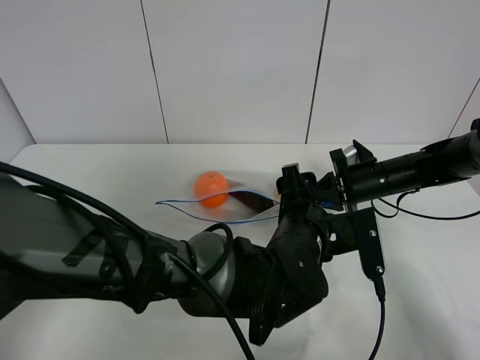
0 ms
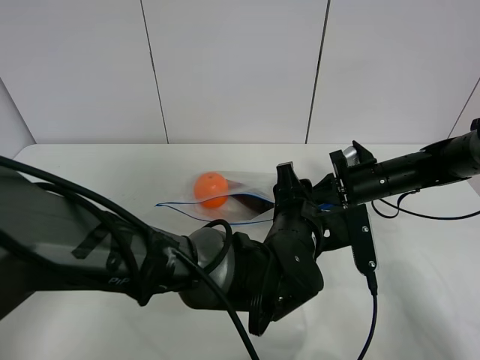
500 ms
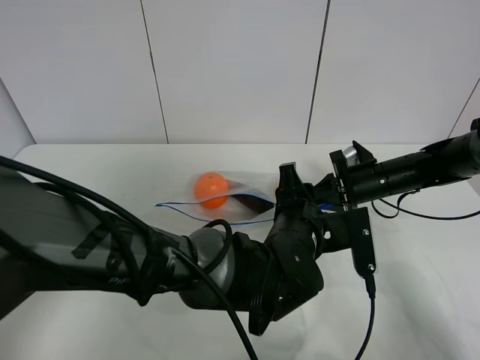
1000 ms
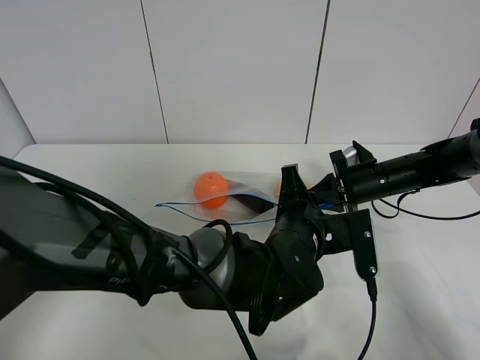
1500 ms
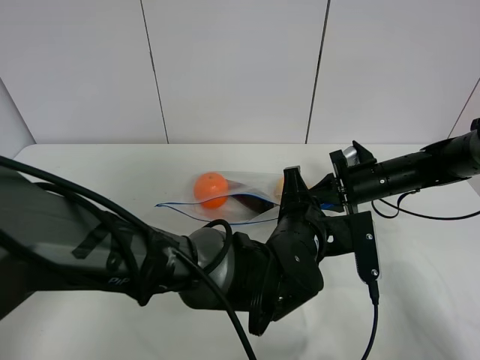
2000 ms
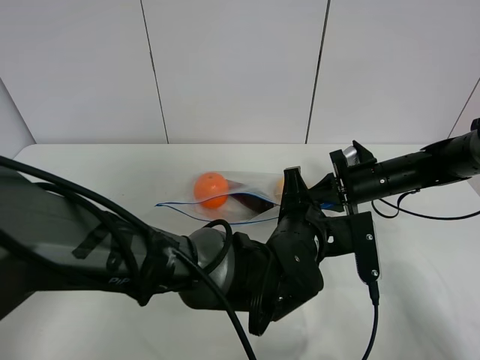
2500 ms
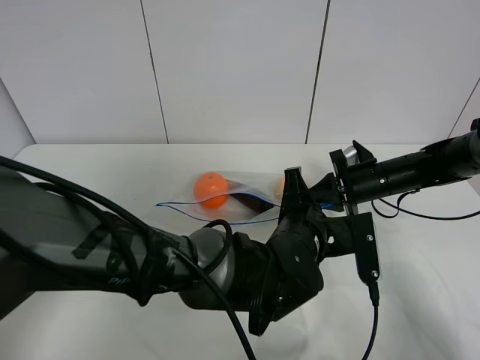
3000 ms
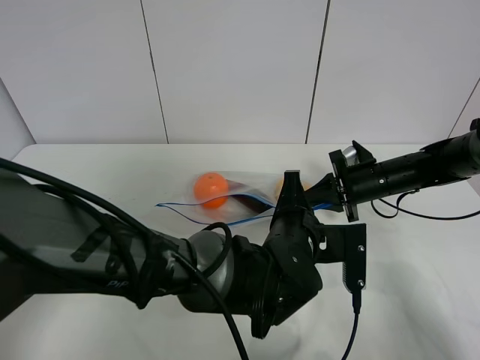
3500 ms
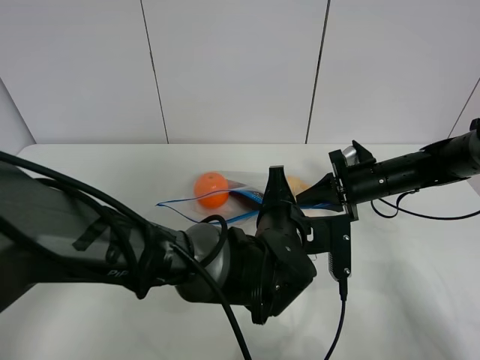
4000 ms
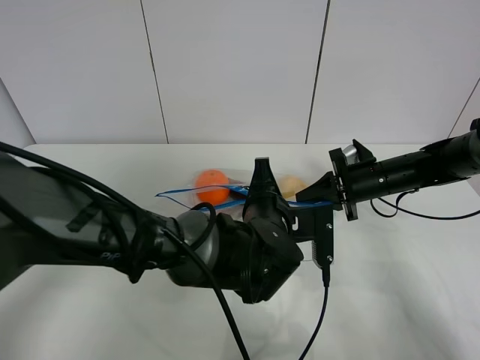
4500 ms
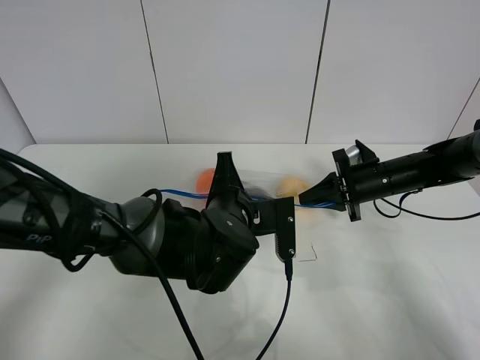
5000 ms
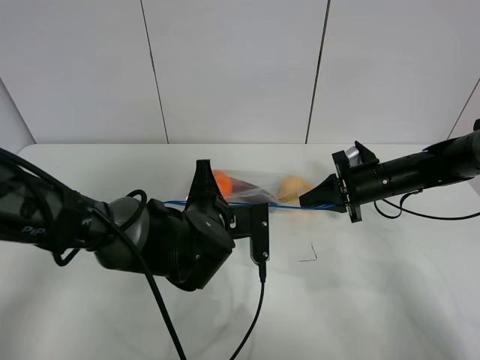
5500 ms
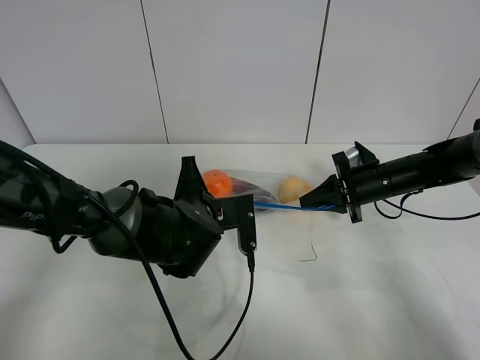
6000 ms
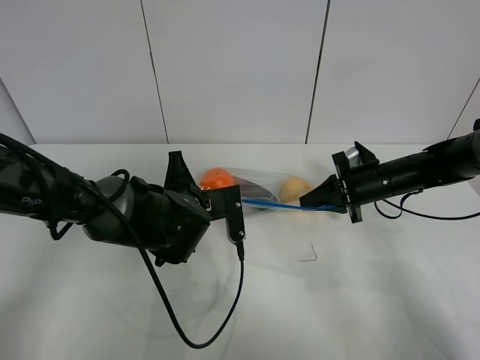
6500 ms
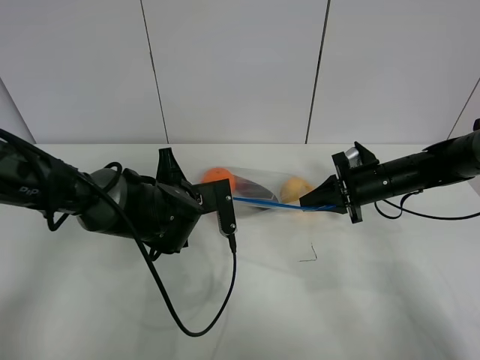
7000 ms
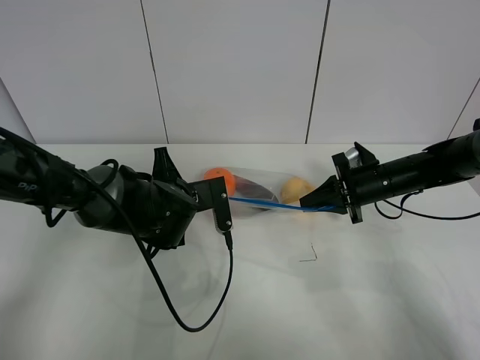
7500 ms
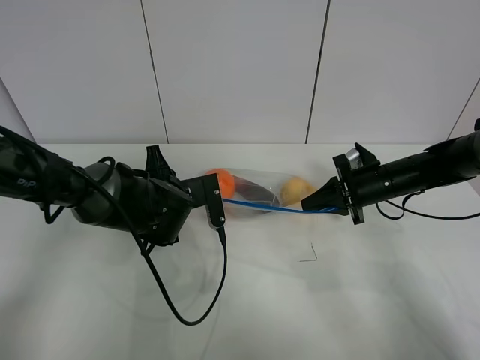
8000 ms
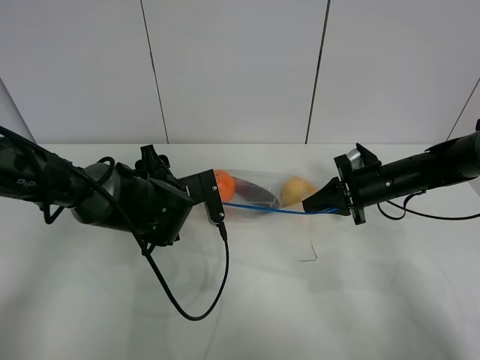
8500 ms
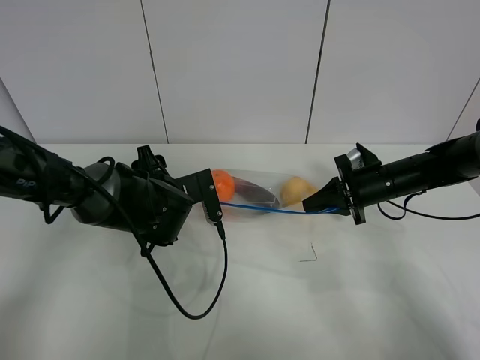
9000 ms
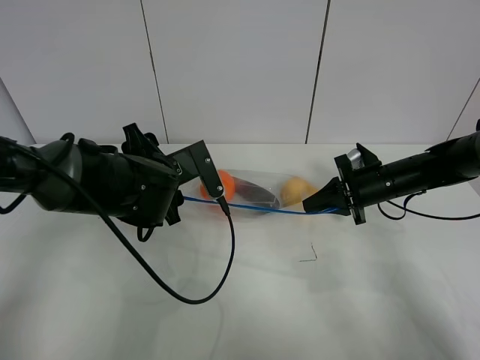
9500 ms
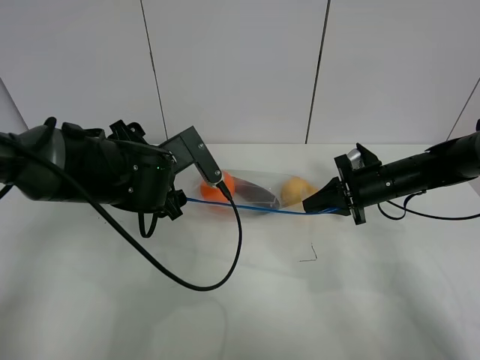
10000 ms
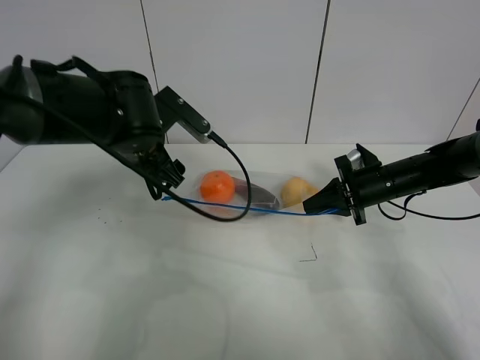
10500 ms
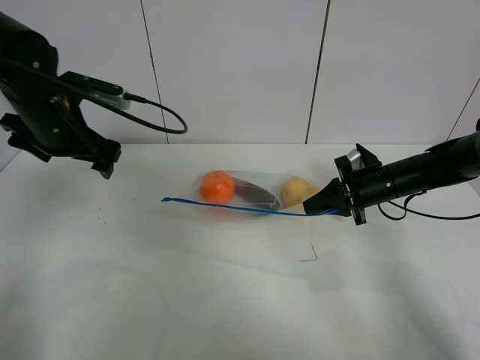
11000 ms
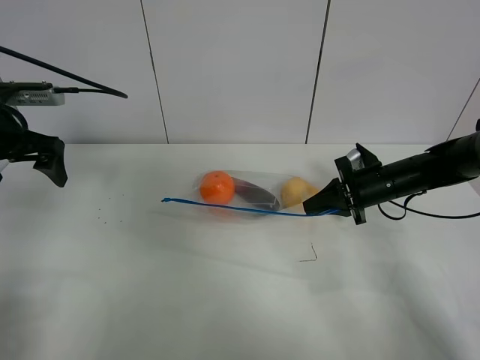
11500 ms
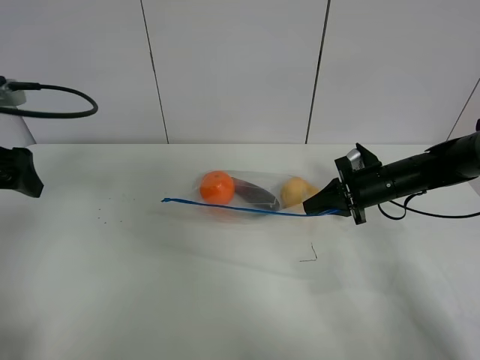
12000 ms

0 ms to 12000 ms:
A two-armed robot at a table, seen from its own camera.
Step, 0 ms to 8000 ms: Pull the fruit bag with left gripper.
0 ms to 2000 ms: The left gripper closes its fingers.
2000 ms to 4000 ms: There are only small adjustments of the grippers.
4000 ms to 6000 ms: The left gripper is displaced to the left by about 10 cm.
6000 ms to 8000 ms: The left gripper ends up approximately 5 cm from where it was, and opens up.
8000 ms to 10000 ms: The left gripper is displaced upward by approximately 5 cm, and opens up.
10000 ms to 12000 ms: The left gripper travels to the left and upward by some 25 cm.

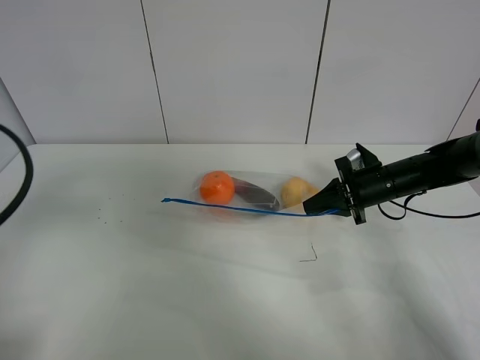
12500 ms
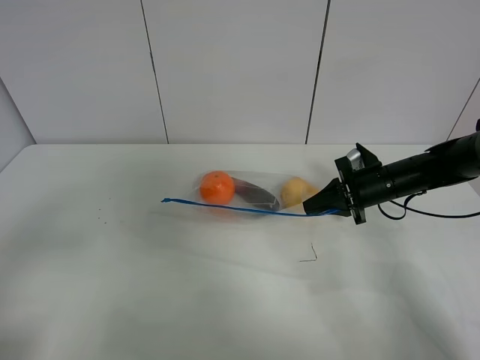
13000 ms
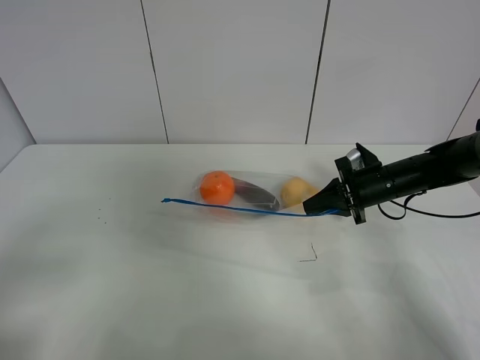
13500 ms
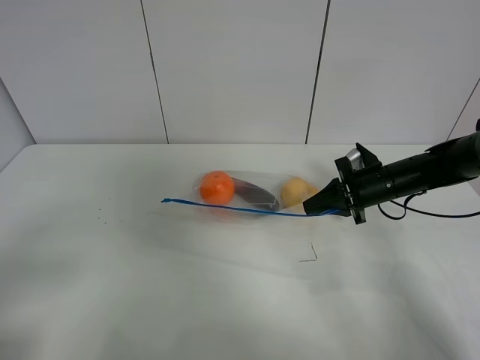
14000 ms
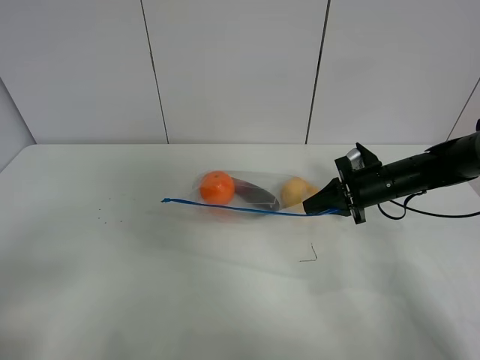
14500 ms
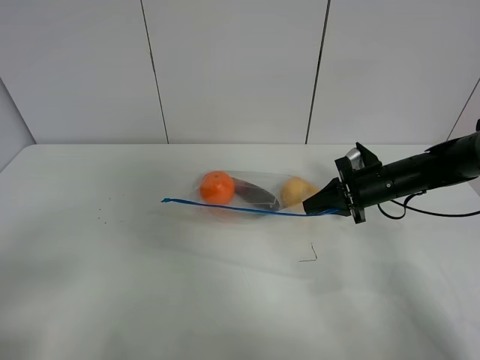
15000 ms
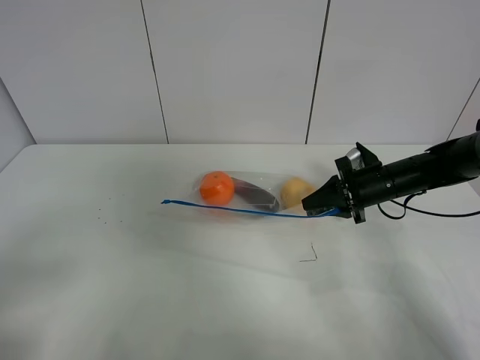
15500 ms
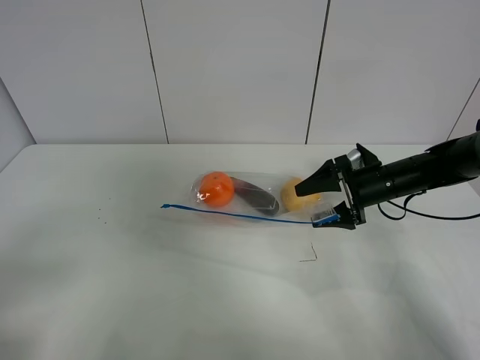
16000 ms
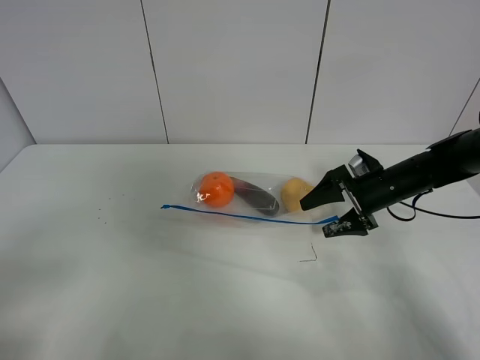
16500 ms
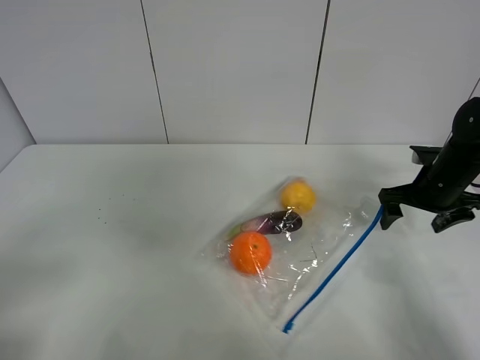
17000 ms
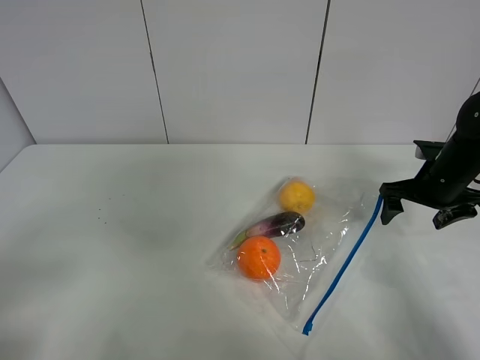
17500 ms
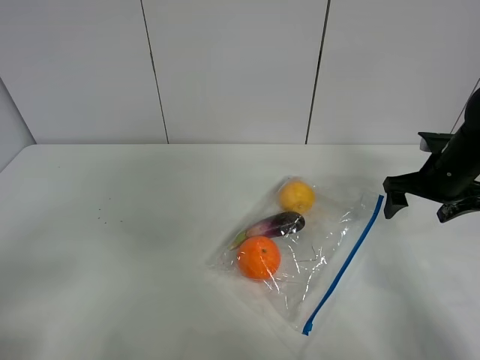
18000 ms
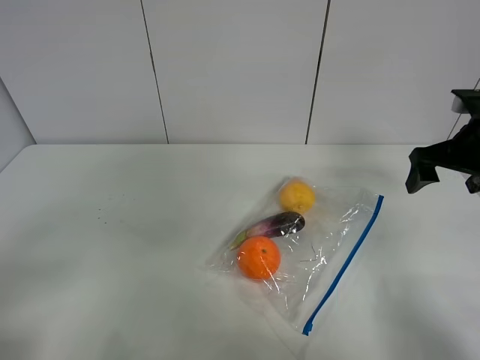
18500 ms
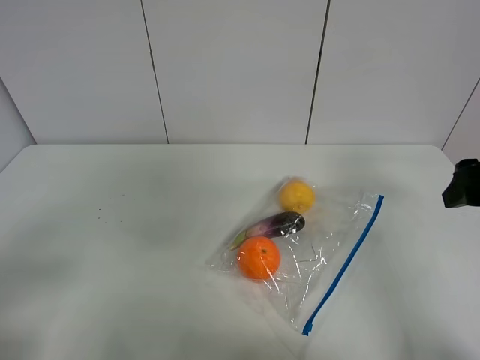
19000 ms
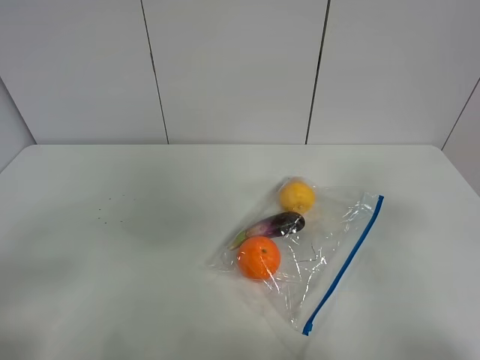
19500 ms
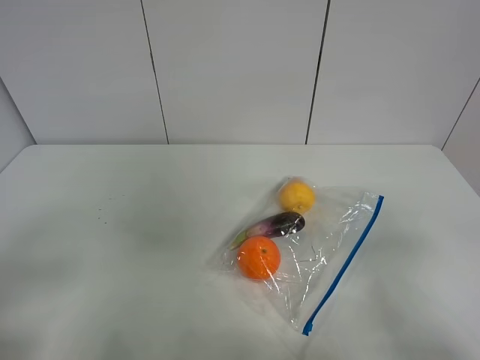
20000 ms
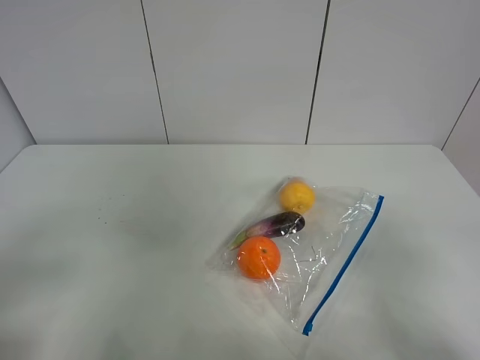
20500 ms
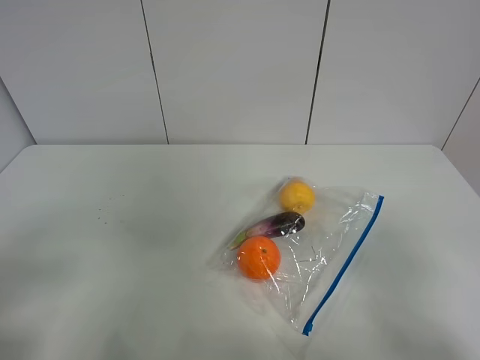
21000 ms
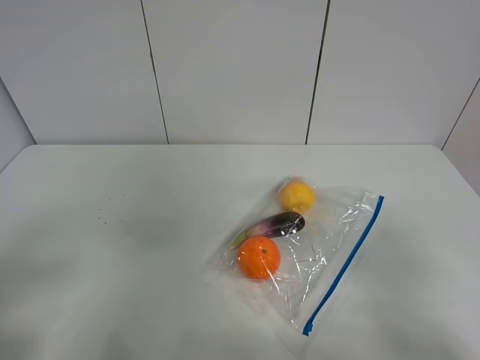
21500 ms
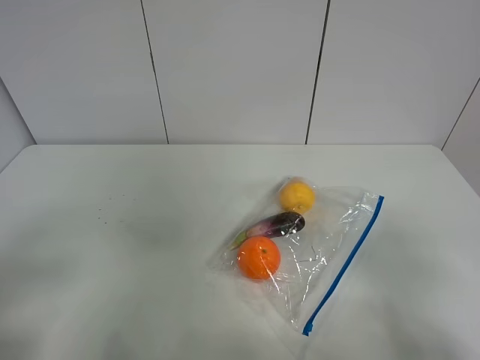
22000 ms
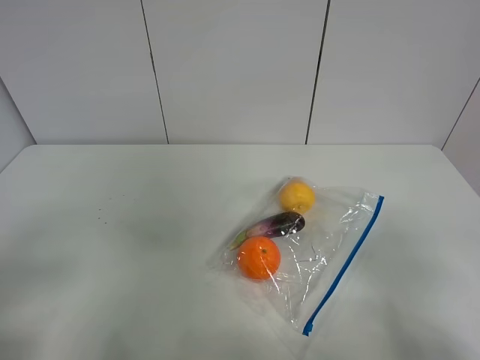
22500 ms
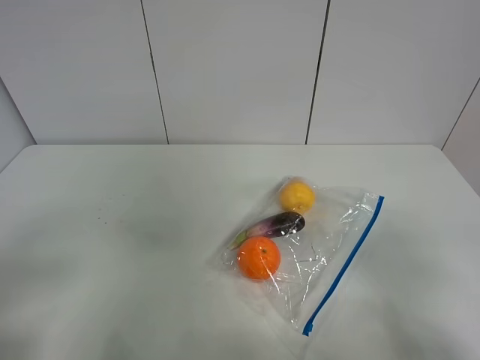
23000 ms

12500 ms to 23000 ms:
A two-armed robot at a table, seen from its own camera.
Step, 12500 ms to 17000 ms: Place the fruit bag with right gripper.
12500 ms to 14500 ms: The left gripper moves backward, roughly 15 cm.
14500 ms to 16500 ms: The right gripper opens its fingers.
16500 ms to 19000 ms: The right gripper is displaced upward and backward by some 25 cm.
19000 ms to 21000 ms: The right gripper shifts about 20 cm backward.

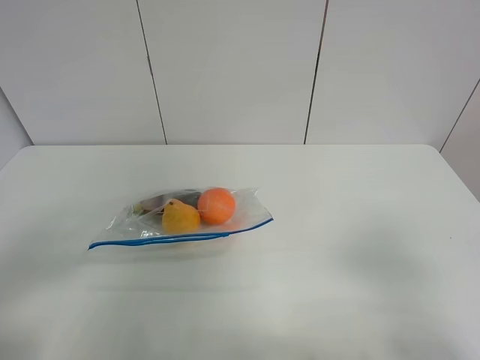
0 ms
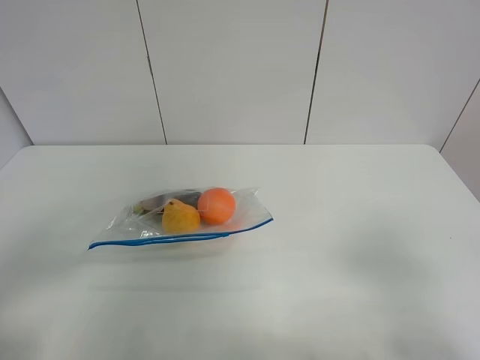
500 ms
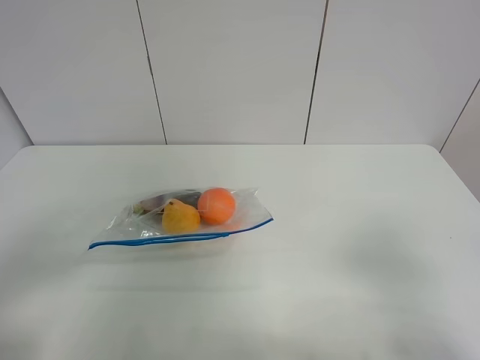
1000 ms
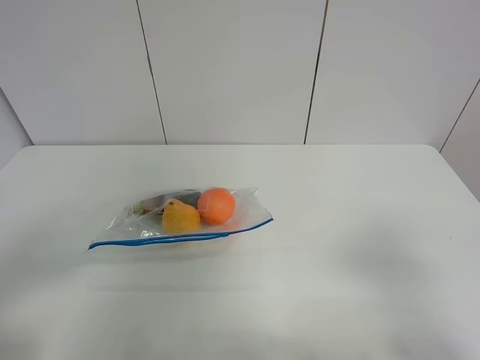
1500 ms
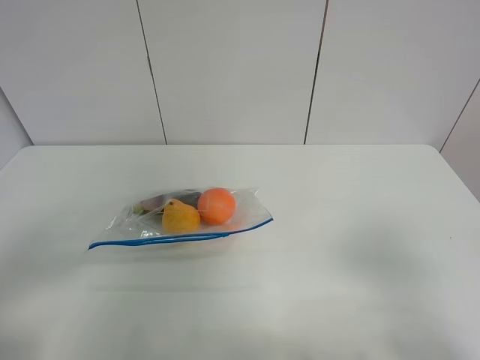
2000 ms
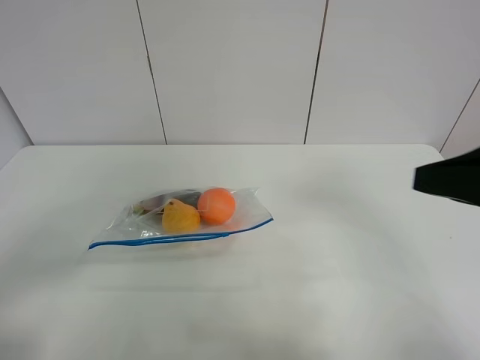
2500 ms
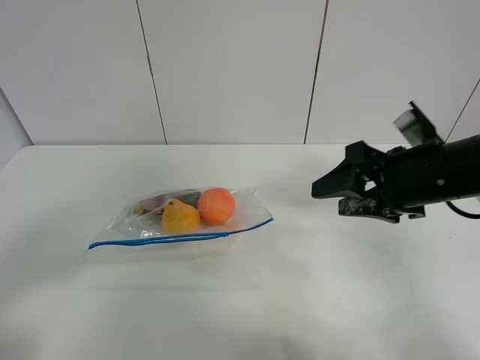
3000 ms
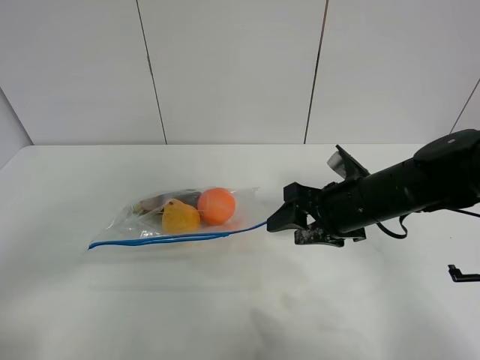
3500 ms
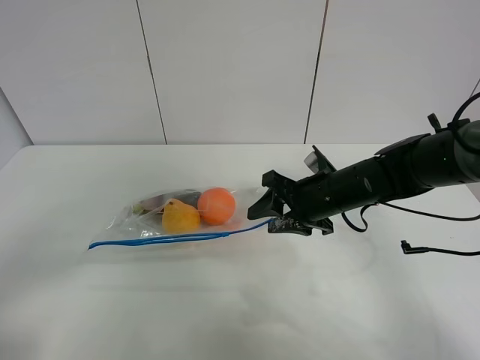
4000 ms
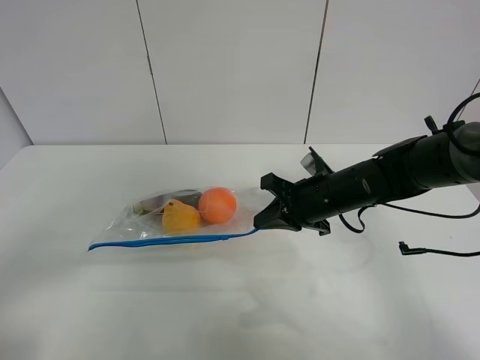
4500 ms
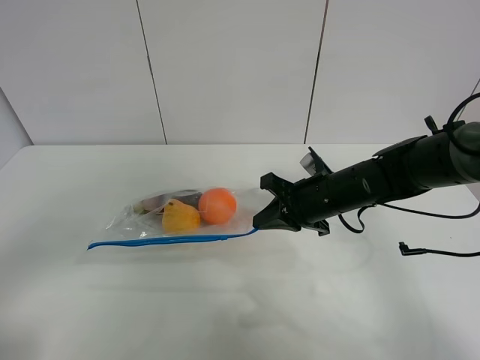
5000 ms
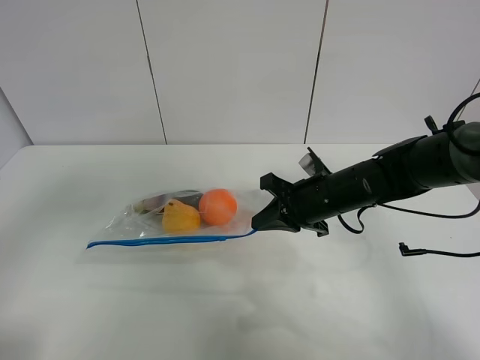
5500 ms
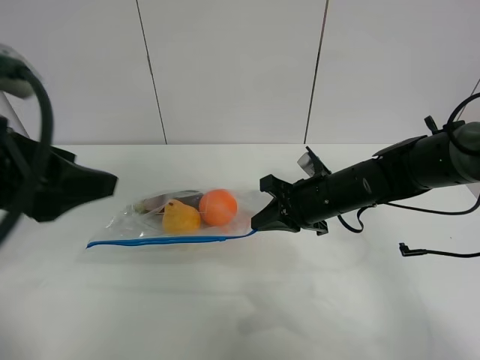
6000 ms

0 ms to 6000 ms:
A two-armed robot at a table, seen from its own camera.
Step, 0 ms to 4000 ms: Grasp the fruit bag with right gripper.
0 ms to 2000 ms: Neither gripper changes place.
2000 ms to 4000 ms: The right gripper heads forward, to the left and downward, covering approximately 35 cm.
4000 ms to 6000 ms: The left gripper is displaced forward and to the right by about 20 cm. The right gripper closes.
